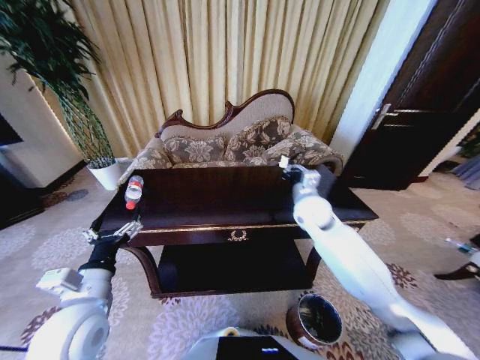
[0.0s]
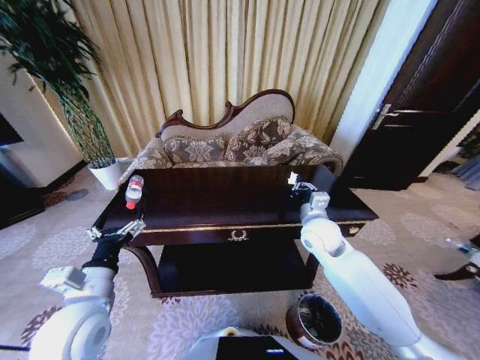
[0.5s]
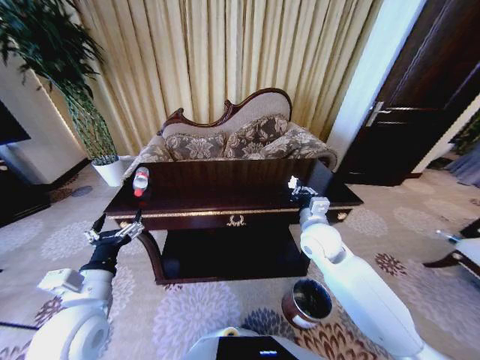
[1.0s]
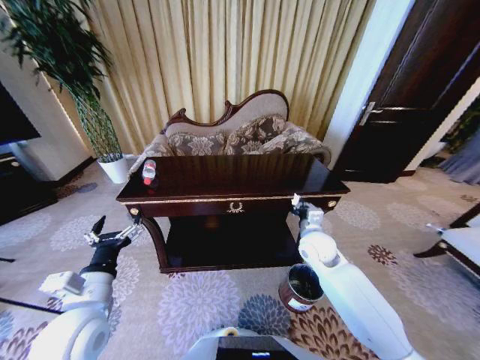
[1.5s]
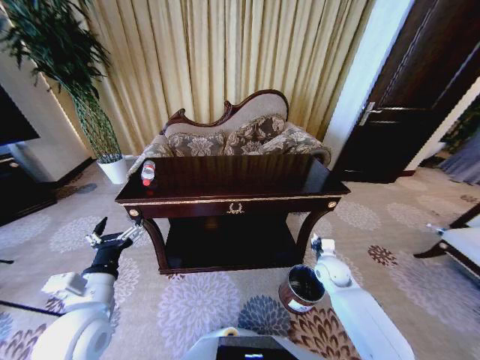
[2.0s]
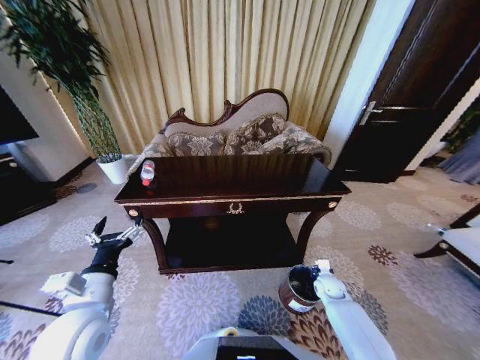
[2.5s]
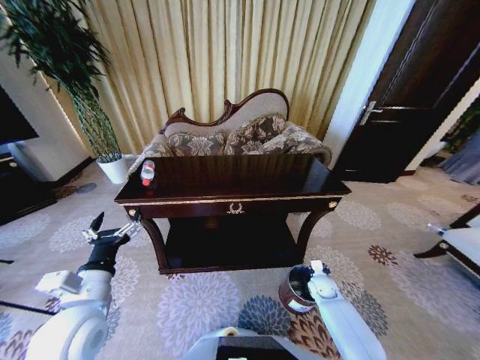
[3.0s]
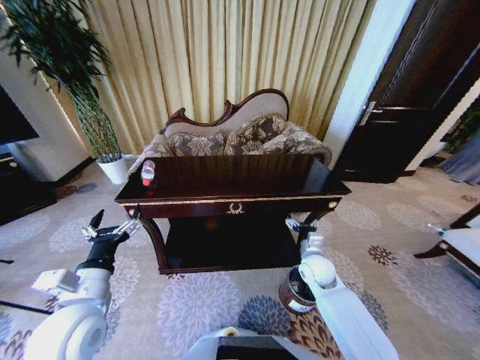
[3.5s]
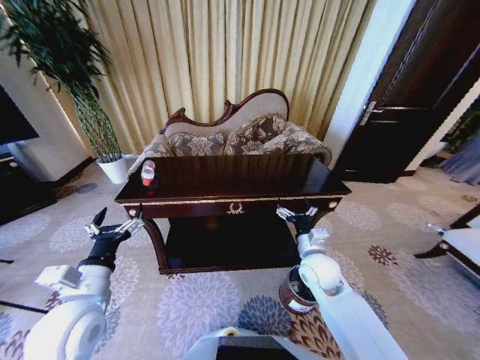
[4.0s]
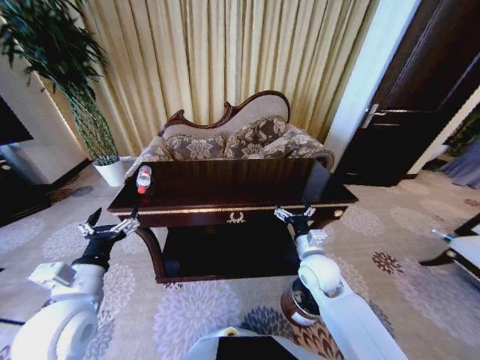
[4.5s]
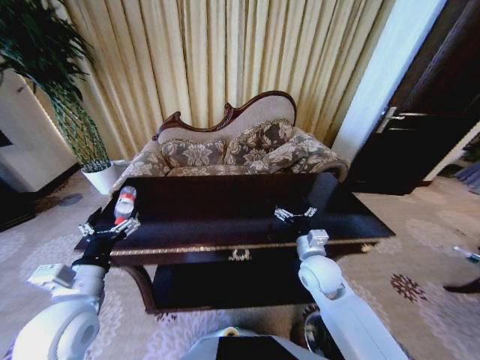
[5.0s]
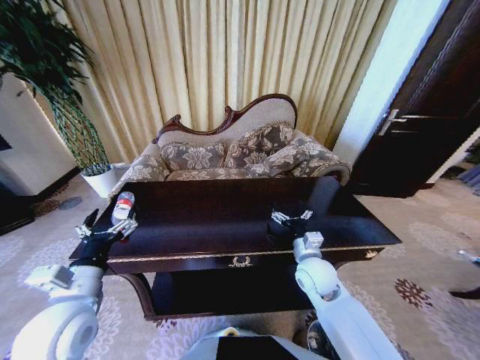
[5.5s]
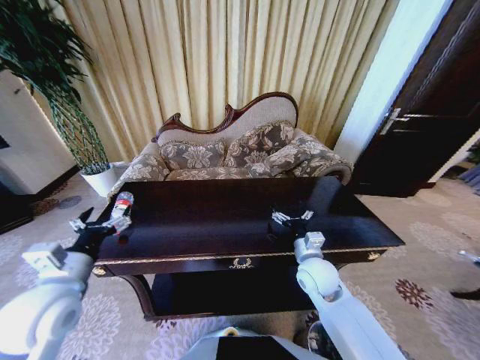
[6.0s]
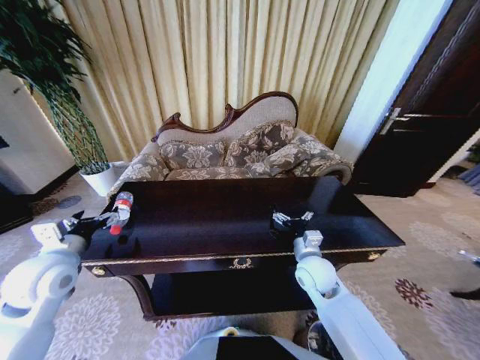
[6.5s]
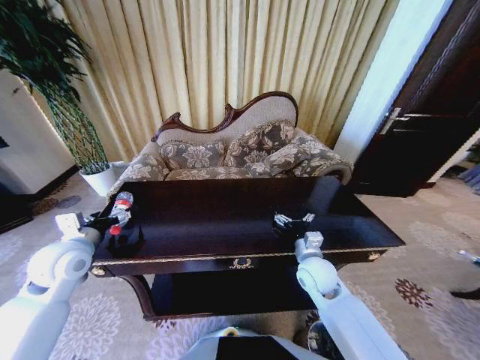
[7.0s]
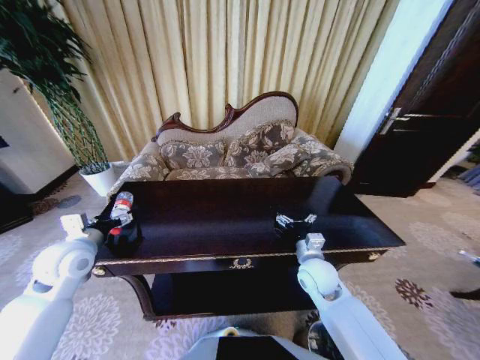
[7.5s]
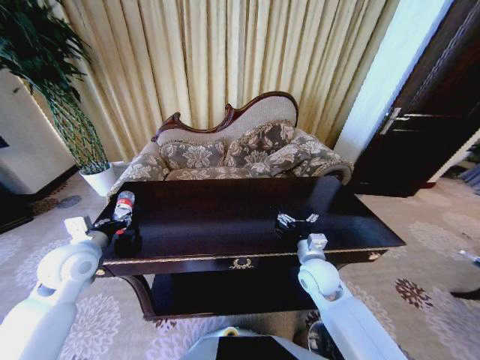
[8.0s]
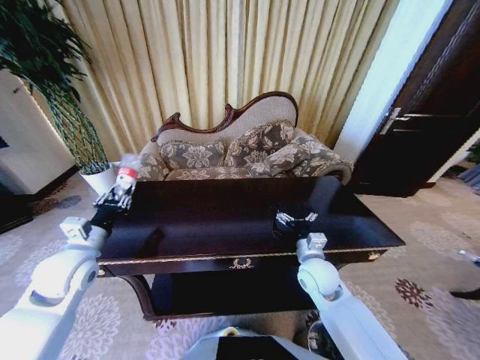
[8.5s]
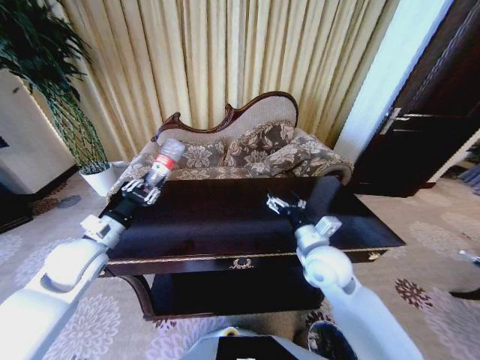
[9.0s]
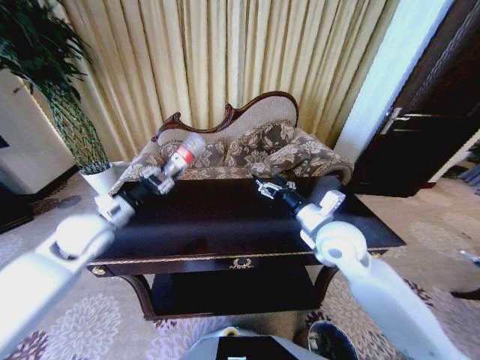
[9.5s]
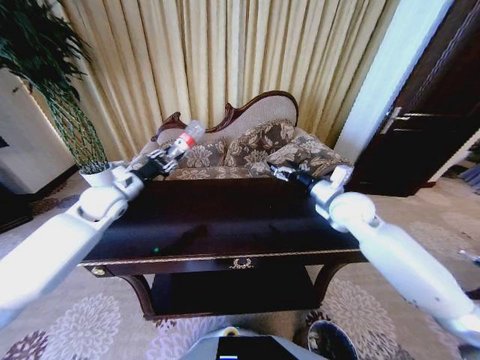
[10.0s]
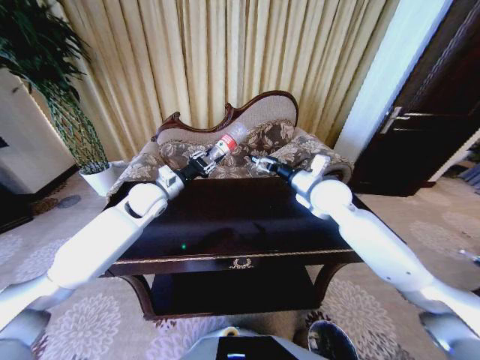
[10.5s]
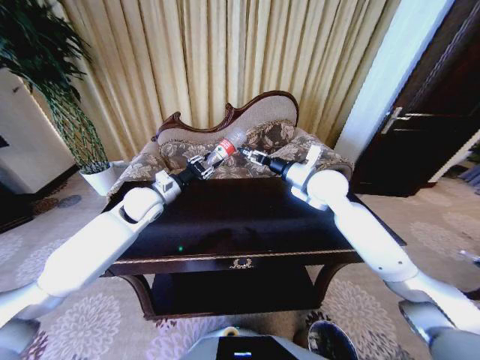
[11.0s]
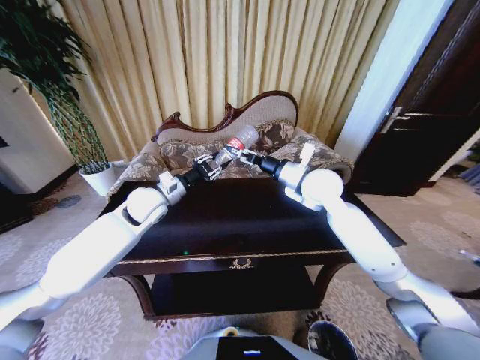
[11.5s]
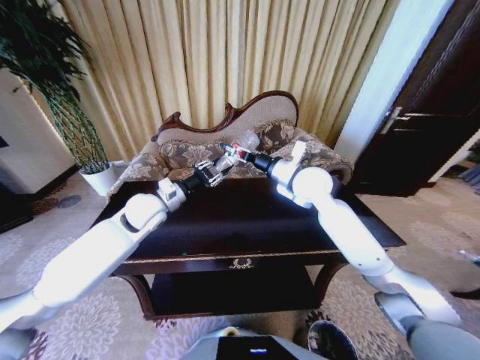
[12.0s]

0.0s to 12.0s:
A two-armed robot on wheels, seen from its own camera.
Task of the whole recording: Move to the front of the table and place the trash on the table into the trash bin.
0.0s to 2.0s: The right gripper goes about 25 cm downward and to the right.
2.0s to 4.0s: The right gripper travels upward and to the left by some 15 cm, and opens up.
4.0s to 6.0s: The left gripper ends up some 5 cm from where it was.
6.0s to 8.0s: The left gripper moves forward, some 10 cm, and closes.
8.0s to 10.0s: The right gripper heads upward, forward and to the right, covering about 20 cm. The left gripper is displaced forward by approximately 15 cm.
10.0s to 12.0s: The right gripper moves to the left, approximately 10 cm; the left gripper shifts roughly 10 cm to the right.

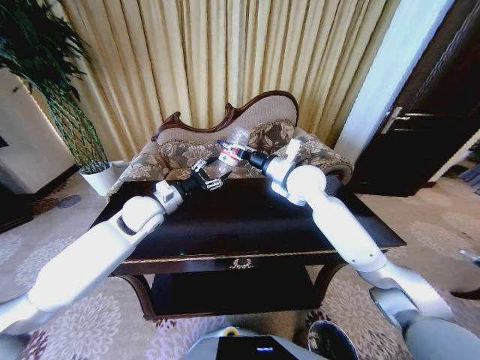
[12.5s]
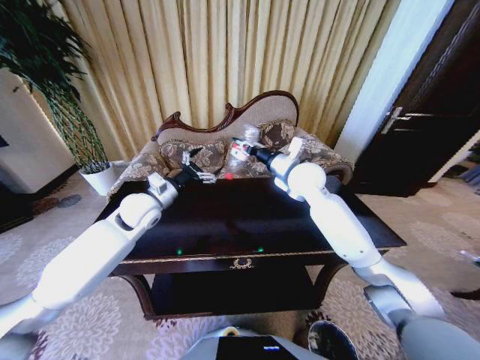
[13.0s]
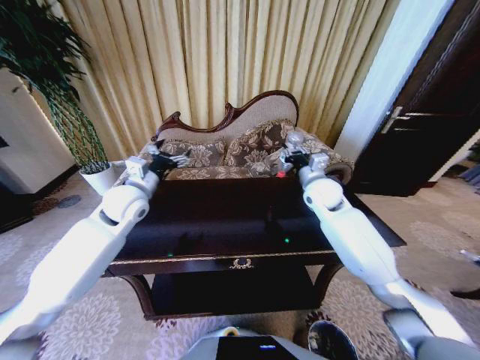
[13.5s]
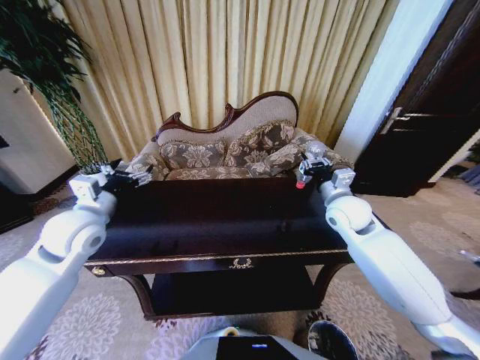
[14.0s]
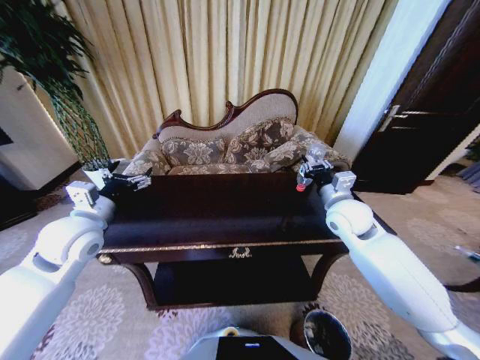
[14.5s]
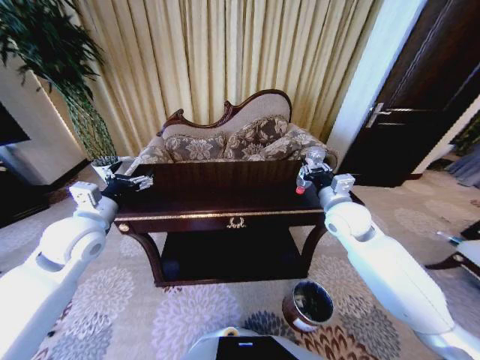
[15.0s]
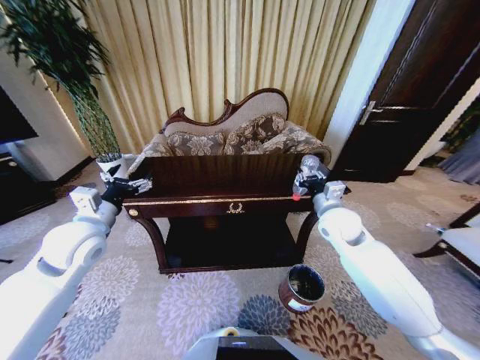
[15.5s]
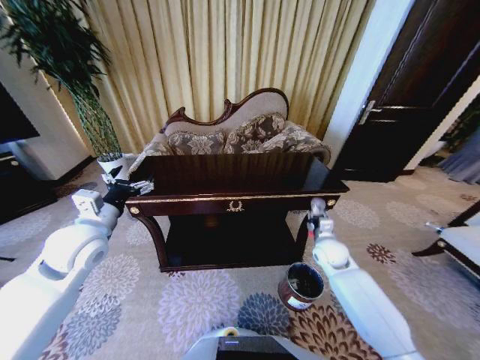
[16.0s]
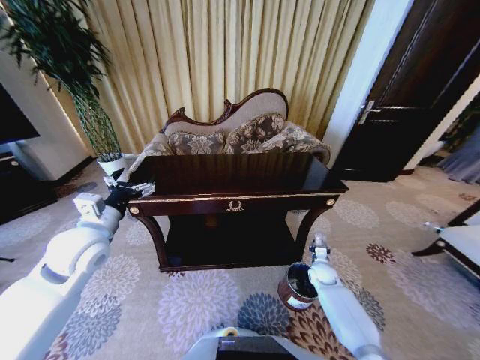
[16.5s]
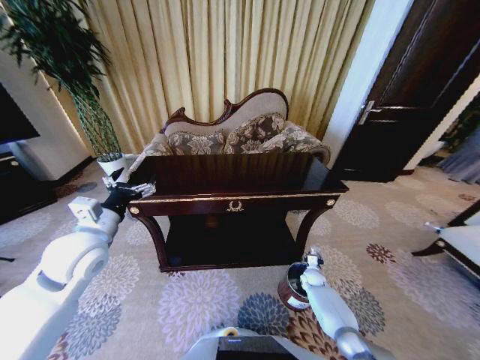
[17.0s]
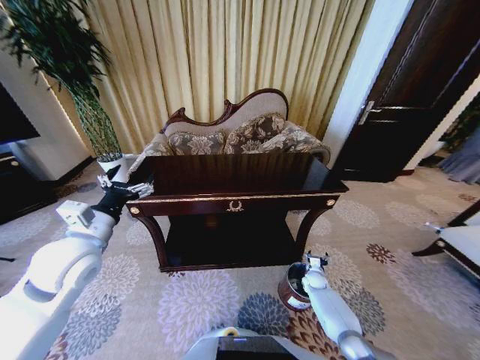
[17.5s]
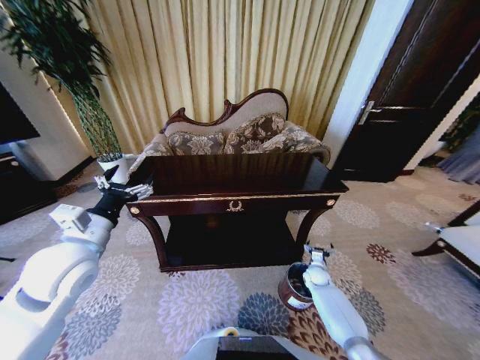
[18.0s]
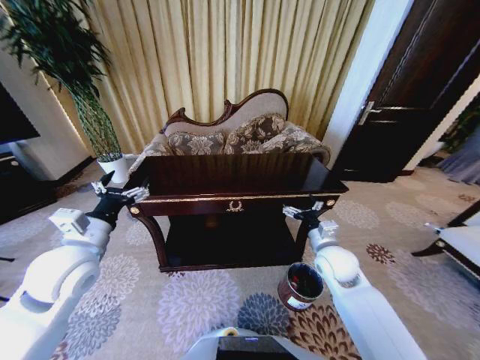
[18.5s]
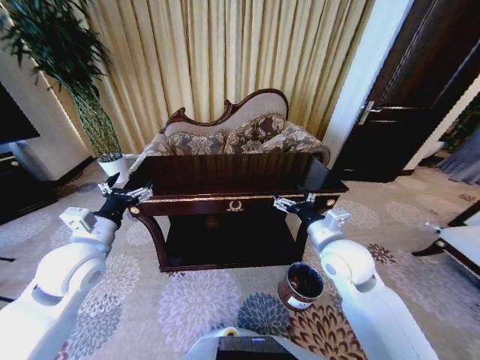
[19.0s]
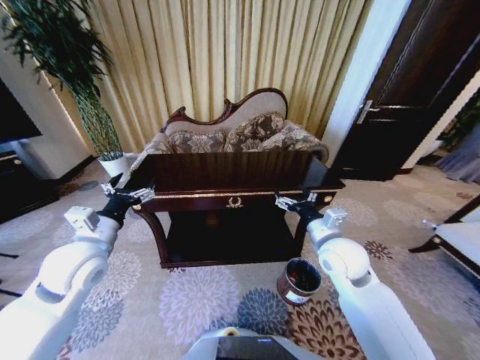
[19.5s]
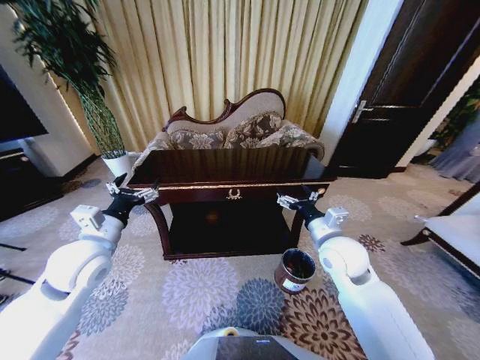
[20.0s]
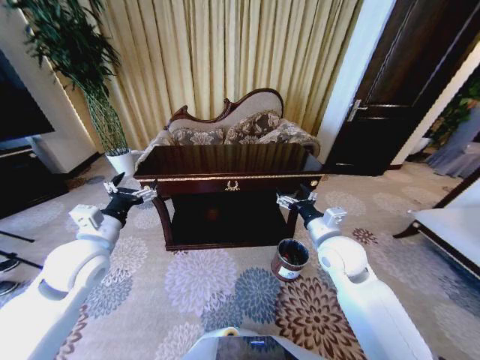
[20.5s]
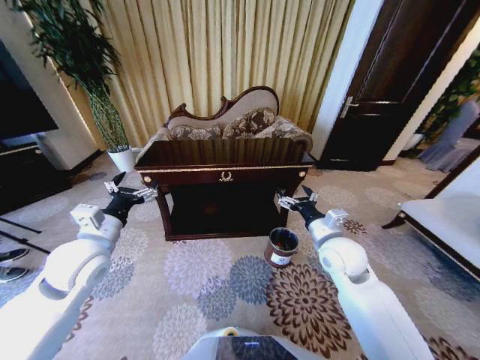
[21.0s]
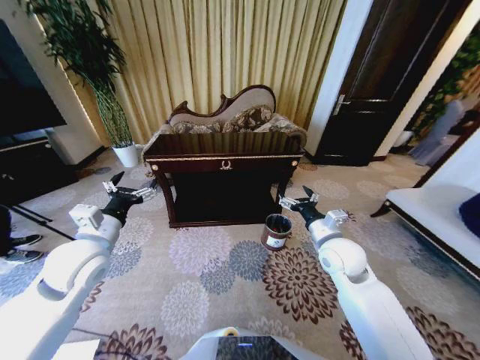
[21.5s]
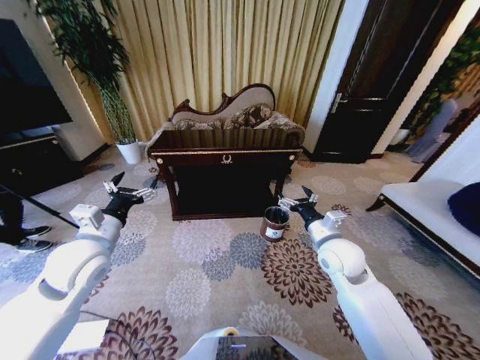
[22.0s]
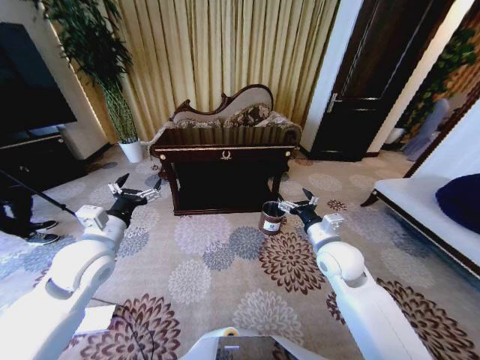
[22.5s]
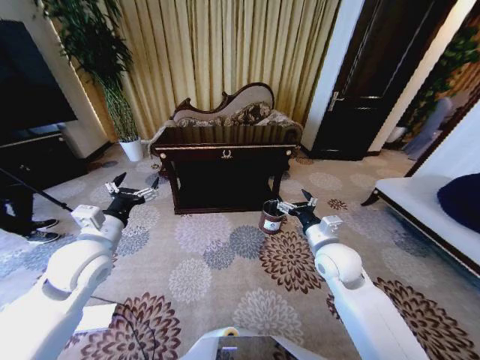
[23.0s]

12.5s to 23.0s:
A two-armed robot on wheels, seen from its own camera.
Task of the whole recording: Move to the front of the table and place the trash on the table into the trash bin.
12.5s to 14.5s: The left gripper moves backward and to the left, some 15 cm, and opens its fingers. The right gripper moves to the right, backward and downward, approximately 15 cm.
14.5s to 16.5s: The right gripper goes roughly 35 cm downward.
16.5s to 19.0s: The right gripper shifts approximately 35 cm upward, and opens up.

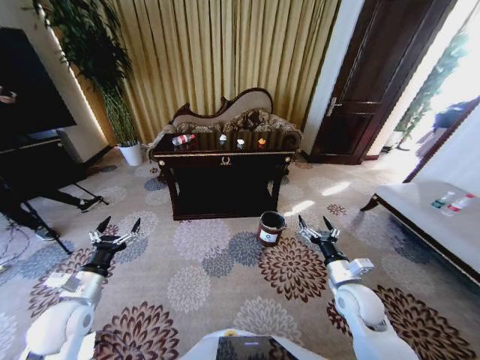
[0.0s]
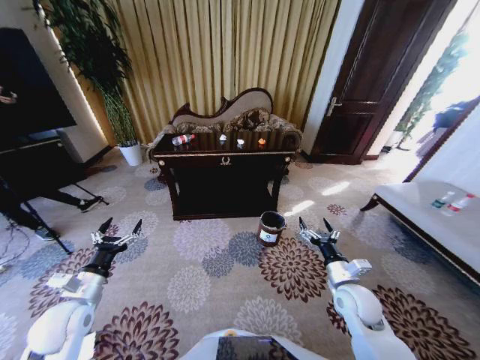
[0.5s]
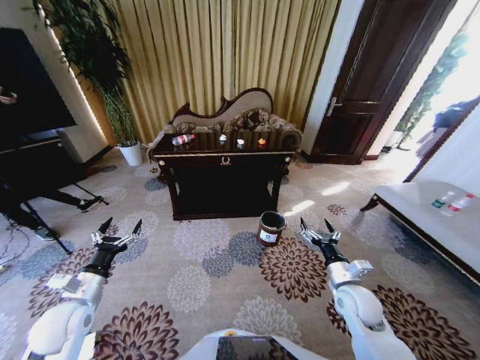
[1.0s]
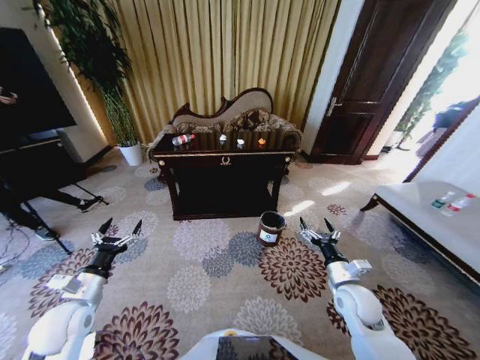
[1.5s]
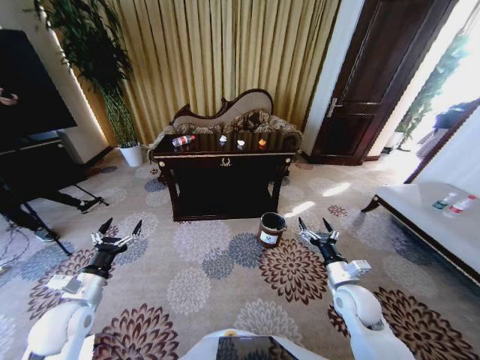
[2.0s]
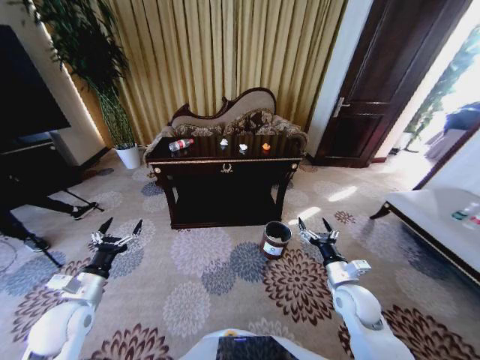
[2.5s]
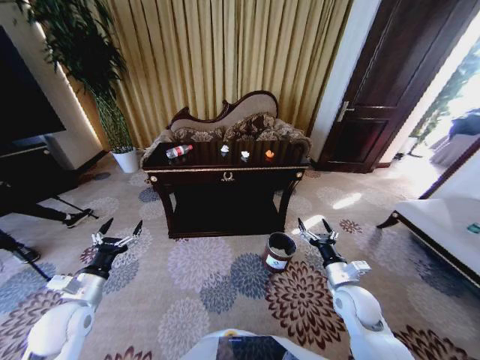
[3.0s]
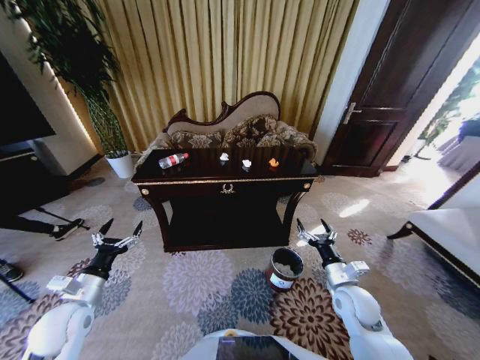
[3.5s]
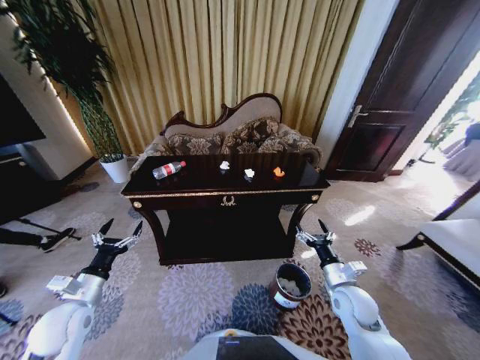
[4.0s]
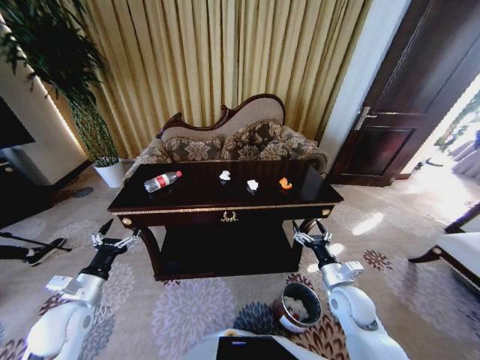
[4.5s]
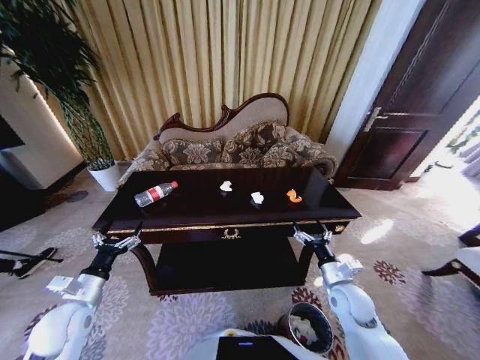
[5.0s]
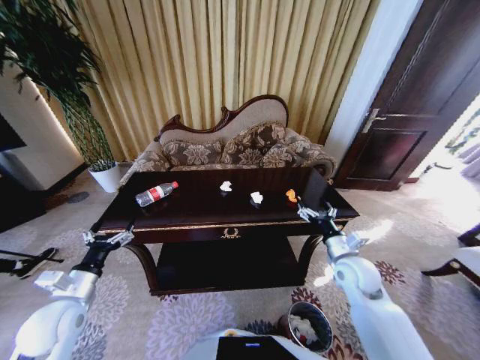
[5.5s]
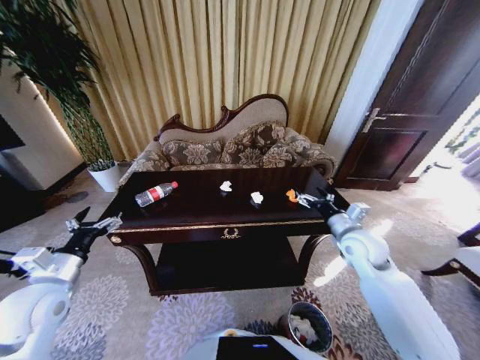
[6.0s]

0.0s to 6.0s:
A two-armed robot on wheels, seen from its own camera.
Task of the whole recording: Move to the front of the table and place the trash on the table into the trash bin.
4.0s to 6.0s: The right gripper heads upward and forward, covering about 15 cm. Meanwhile the left gripper travels upward by approximately 10 cm.
